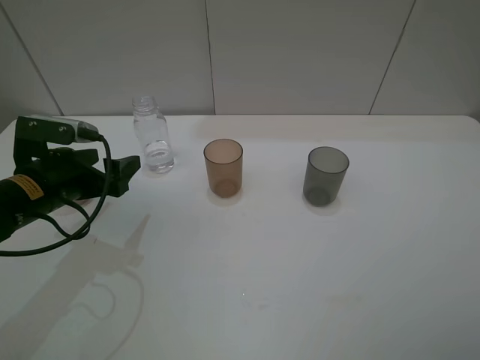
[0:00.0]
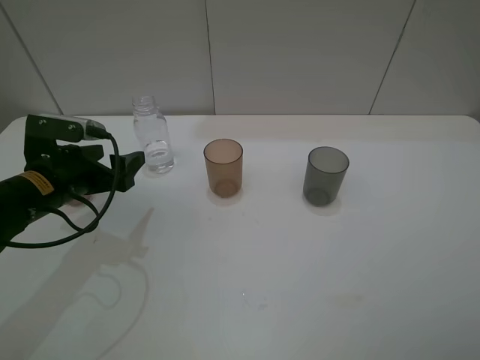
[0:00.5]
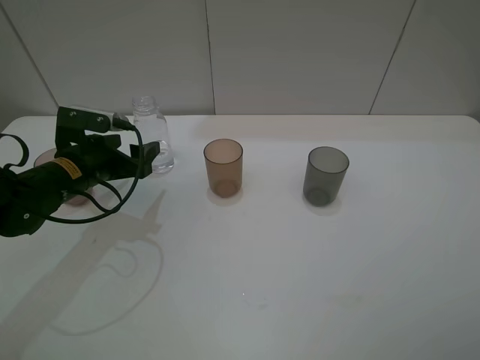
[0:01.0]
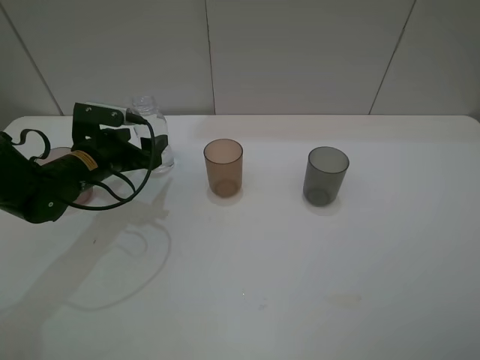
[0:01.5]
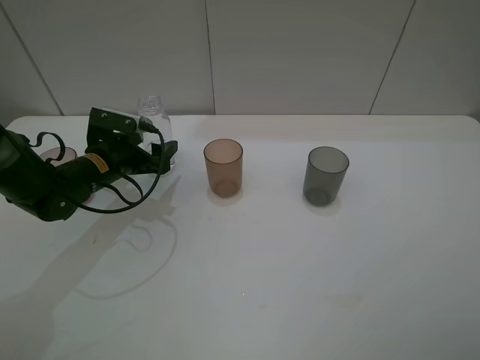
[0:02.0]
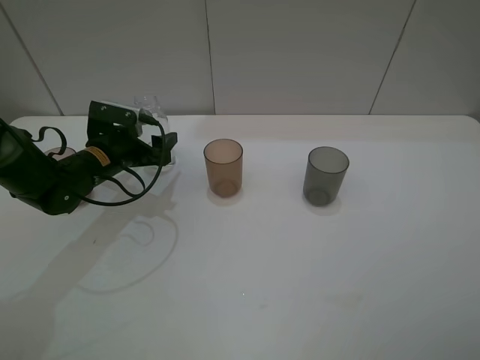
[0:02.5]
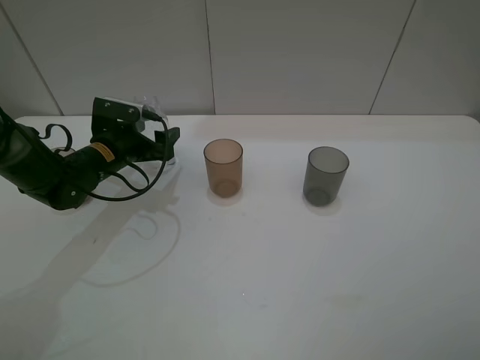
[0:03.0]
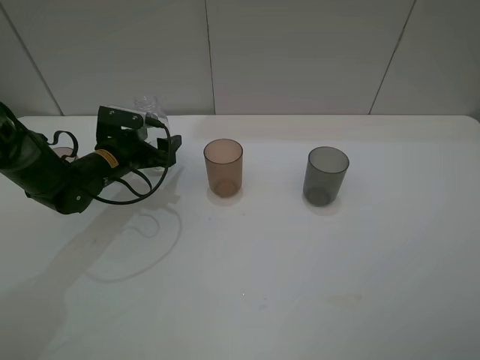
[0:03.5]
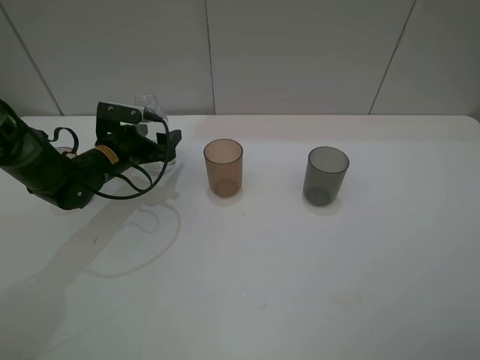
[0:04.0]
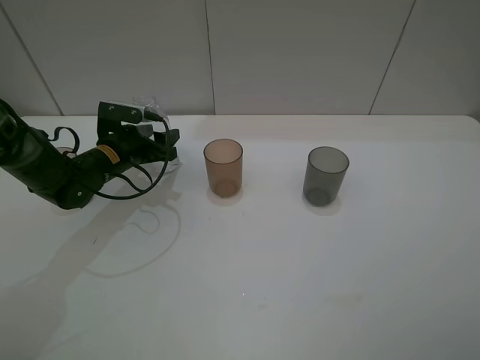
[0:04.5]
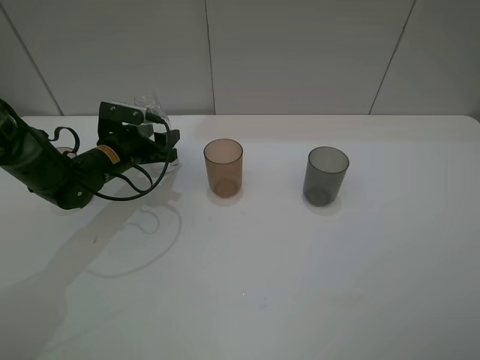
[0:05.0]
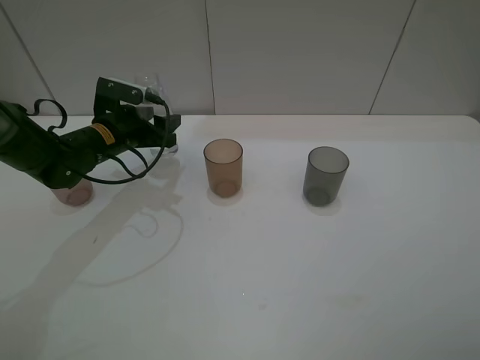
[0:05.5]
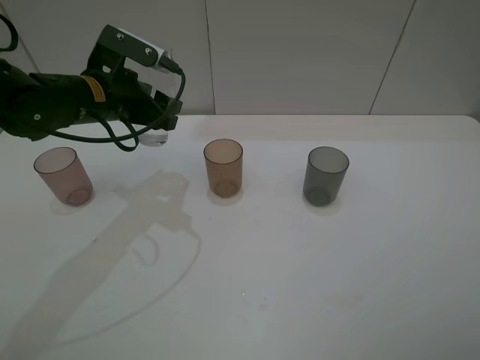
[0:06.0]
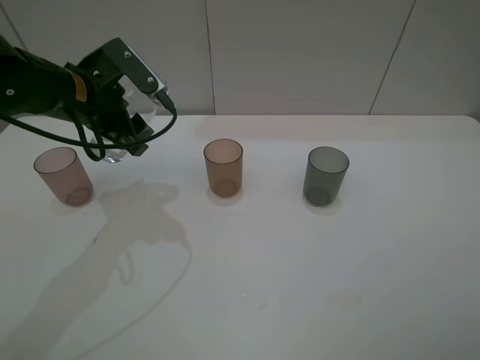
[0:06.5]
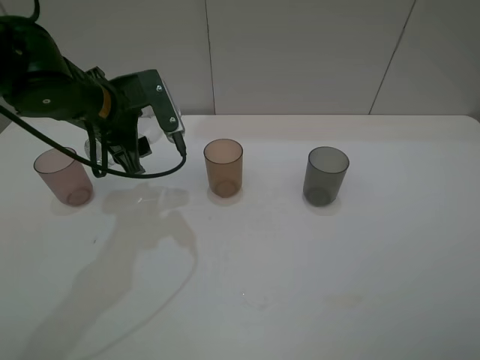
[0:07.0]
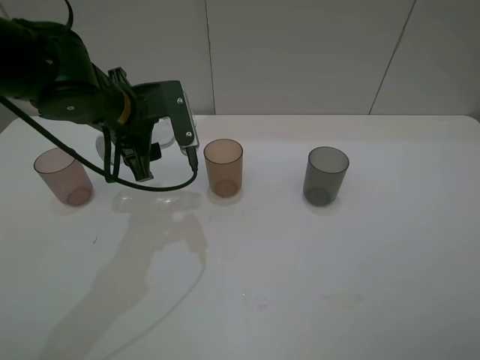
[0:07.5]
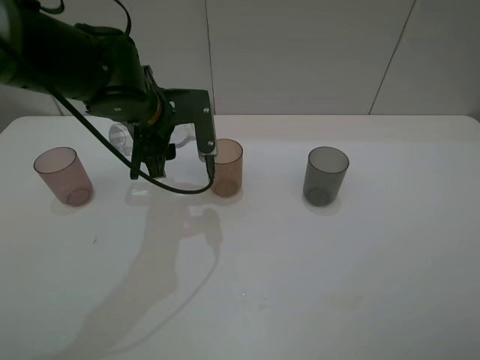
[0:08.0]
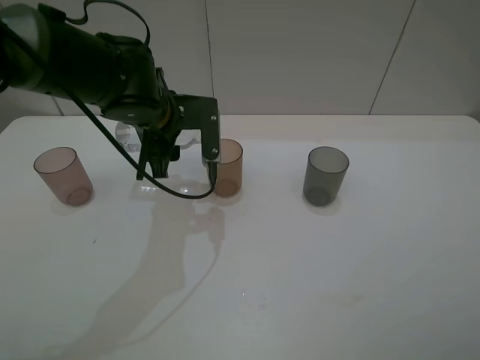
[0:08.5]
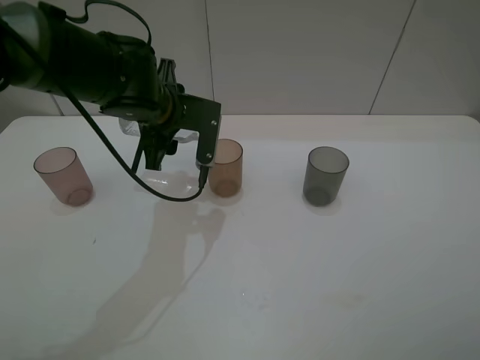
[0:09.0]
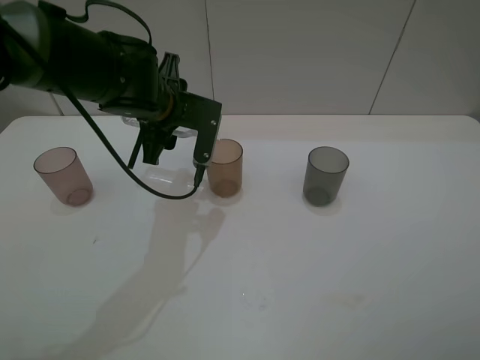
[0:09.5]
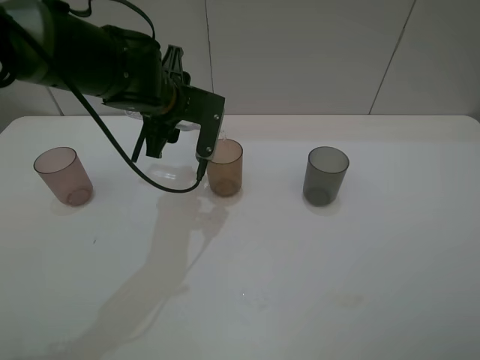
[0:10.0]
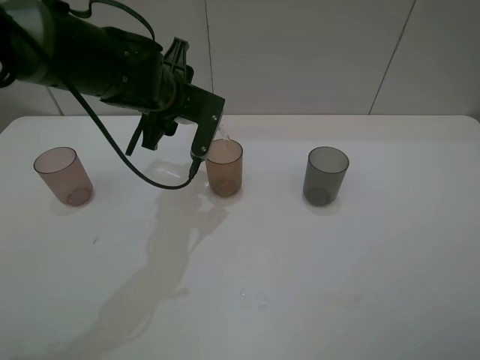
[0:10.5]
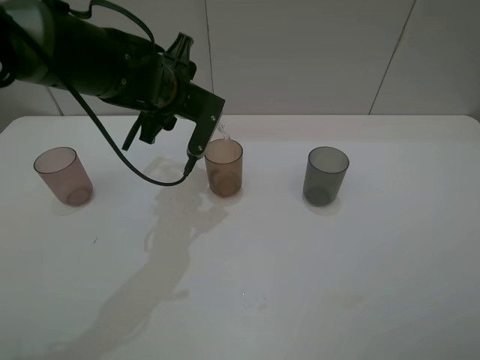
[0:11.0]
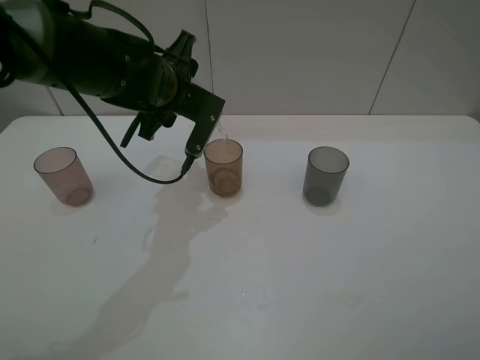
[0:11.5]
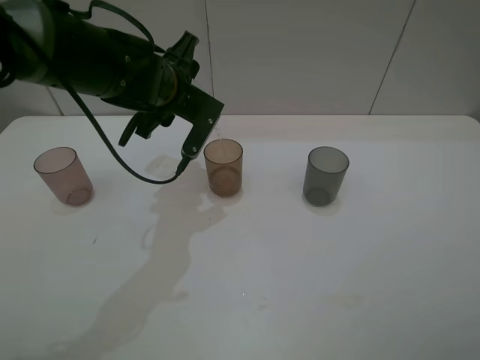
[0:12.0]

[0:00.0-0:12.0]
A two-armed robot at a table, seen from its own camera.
Task of the whole recording: pick up the bottle filled with water and pour water into the middle cup of the three cups.
Step, 0:00.0 to 0:05.0: Grasp the transparent bottle with the left gripper.
0:00.0 to 0:02.0: The left gripper travels forward and downward by approximately 10 cm.
0:02.0 to 0:04.0: The grippers move only a little.
0:04.0 to 0:06.0: The left gripper is displaced upward by approximately 15 cm, and closes up.
0:06.0 to 0:08.0: The left gripper is displaced to the right by roughly 5 cm.
0:10.0 to 0:12.0: The grippers stay close to where they were, moving slightly.

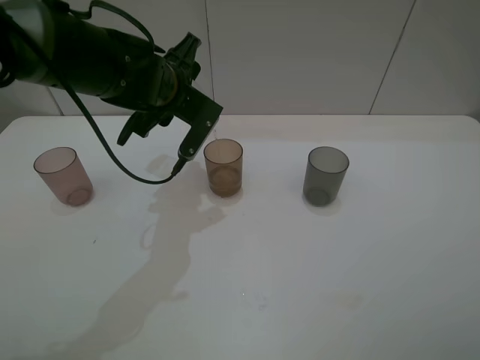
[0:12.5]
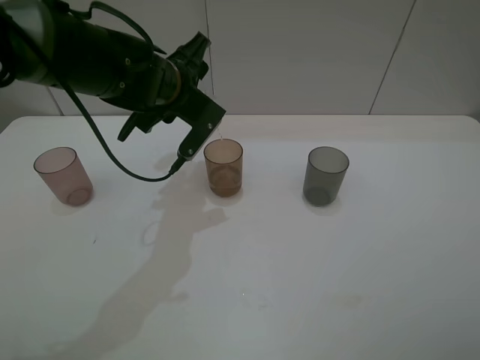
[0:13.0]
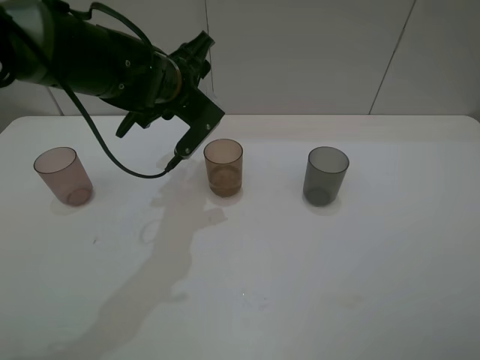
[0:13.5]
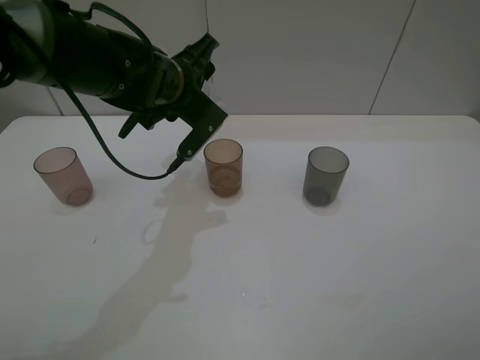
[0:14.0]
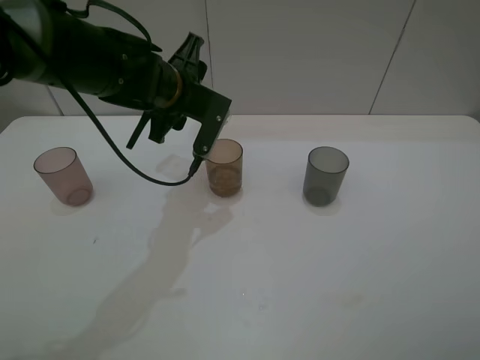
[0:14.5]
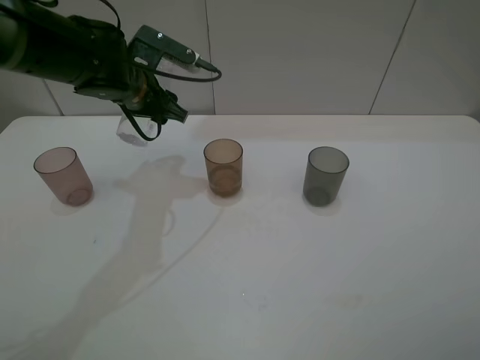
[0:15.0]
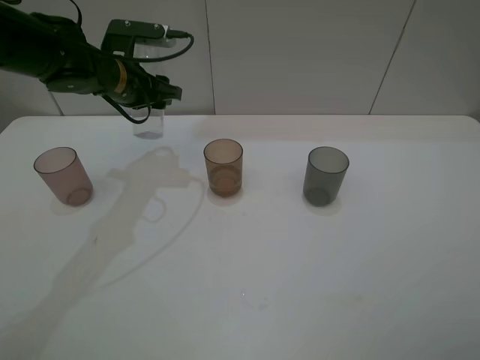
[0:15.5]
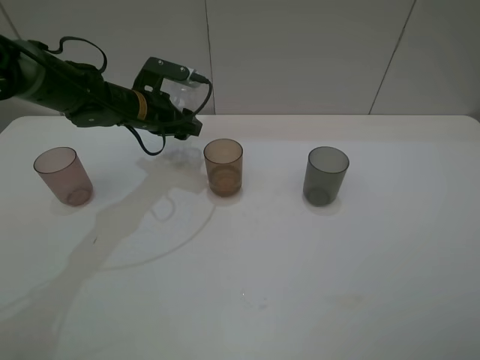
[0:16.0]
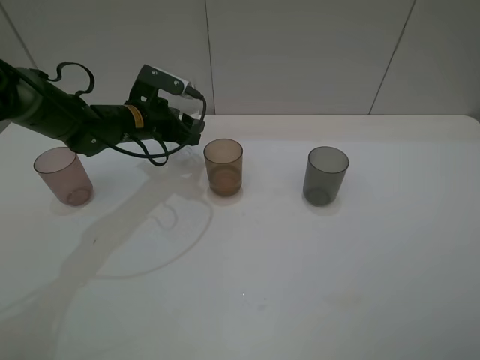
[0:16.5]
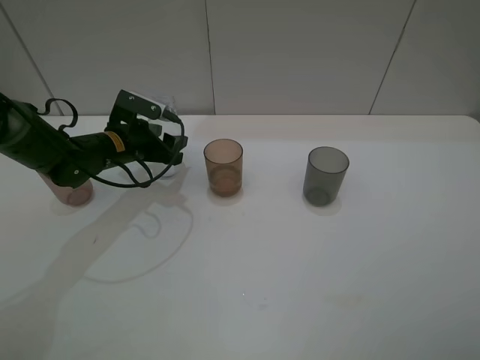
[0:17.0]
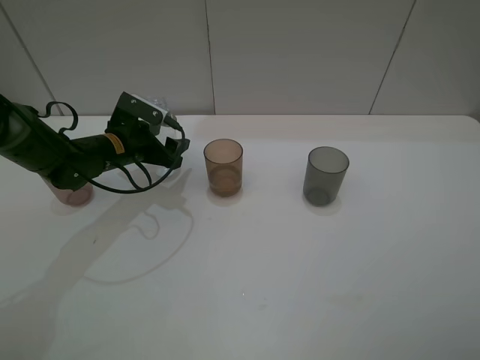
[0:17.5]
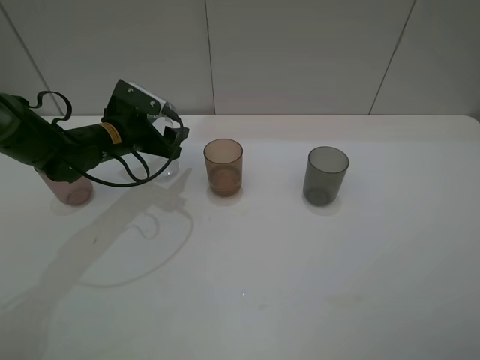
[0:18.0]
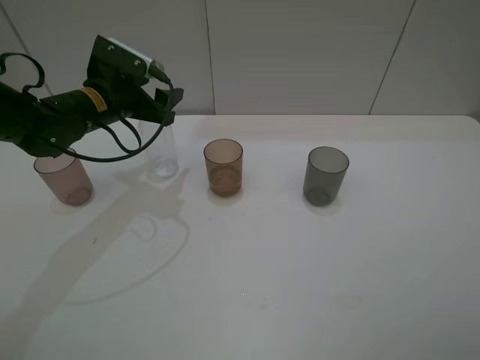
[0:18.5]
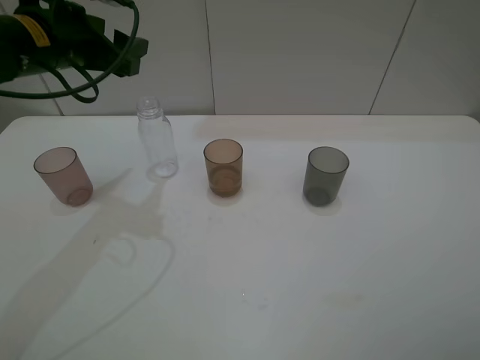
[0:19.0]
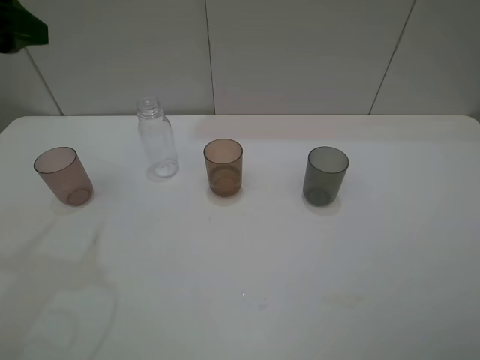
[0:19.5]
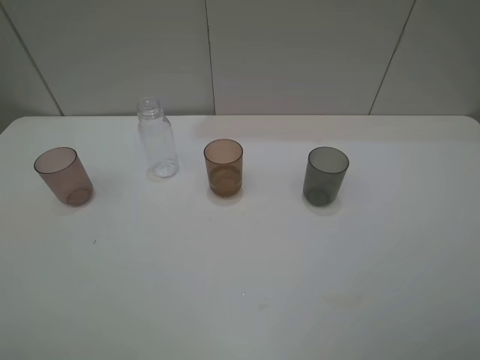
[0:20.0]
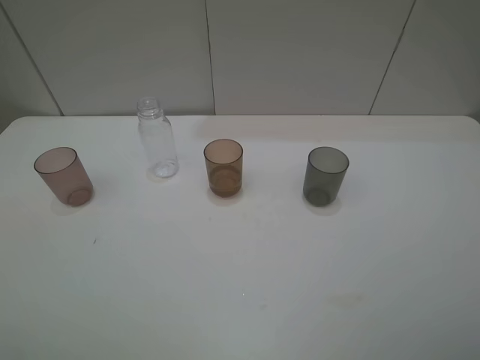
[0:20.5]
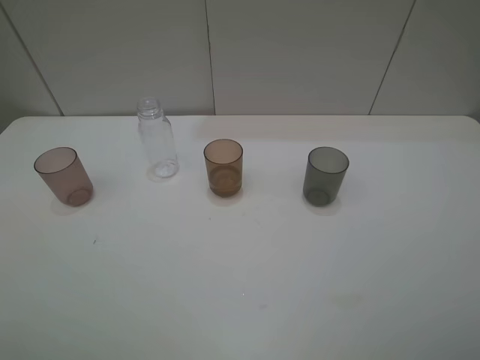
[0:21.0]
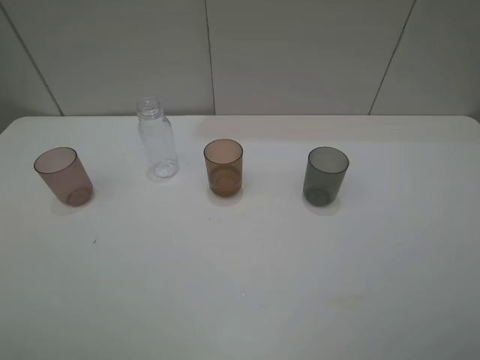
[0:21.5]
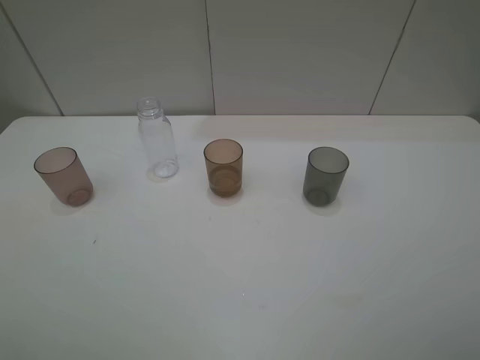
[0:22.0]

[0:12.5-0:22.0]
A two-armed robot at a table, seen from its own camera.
Task of the whole recording: pick up the bottle filled with water and pour water into the middle cup of the three cups.
Step, 0:14.5 to 0:18.5: Place the transparent bottle with the left gripper.
0:12.5 to 0:14.5: The grippers move only a little.
0:14.5 to 0:16.5: The left gripper travels to the left and downward by some 10 cm.
0:16.5 to 0:18.0: The left gripper opens up.
0:18.0 to 0:20.0: The left gripper travels backward and upward by about 40 cm.
